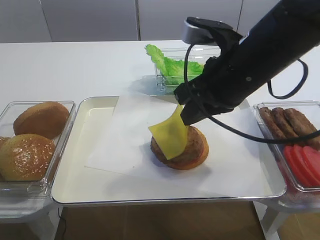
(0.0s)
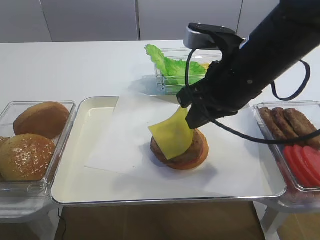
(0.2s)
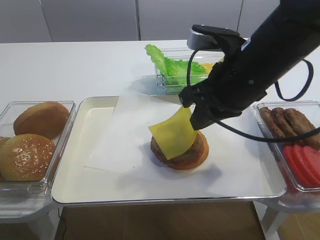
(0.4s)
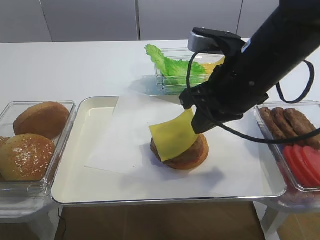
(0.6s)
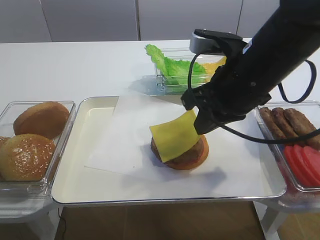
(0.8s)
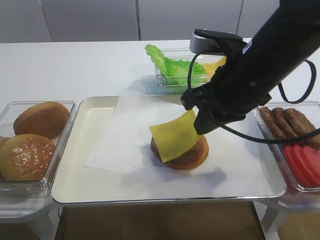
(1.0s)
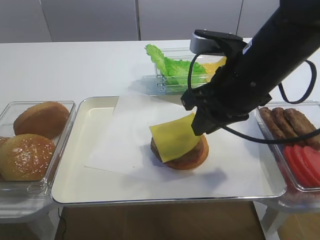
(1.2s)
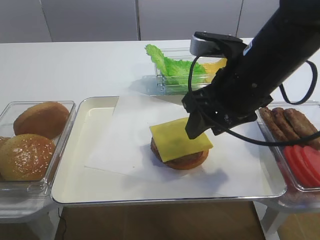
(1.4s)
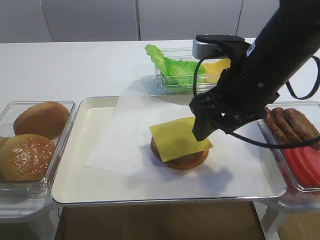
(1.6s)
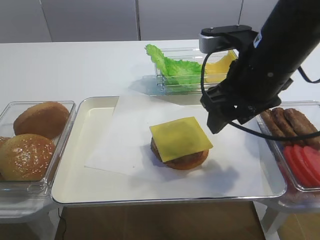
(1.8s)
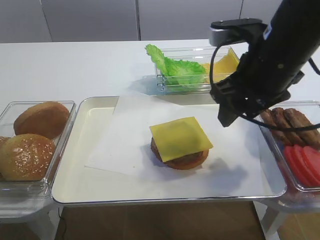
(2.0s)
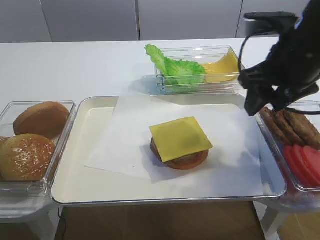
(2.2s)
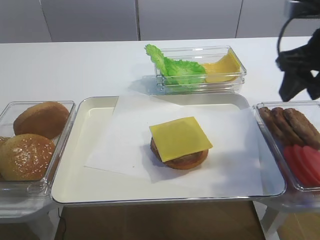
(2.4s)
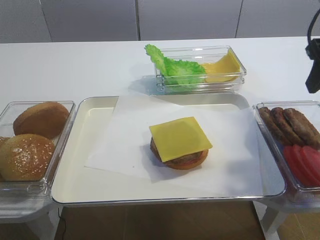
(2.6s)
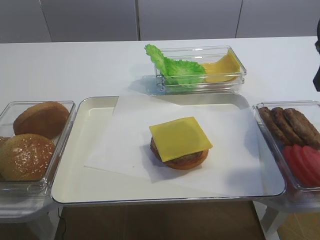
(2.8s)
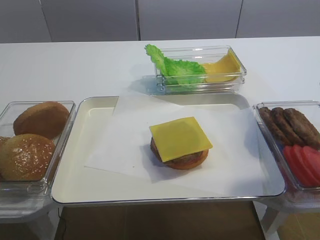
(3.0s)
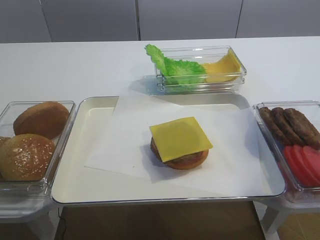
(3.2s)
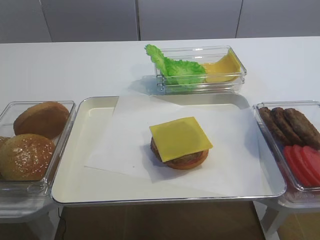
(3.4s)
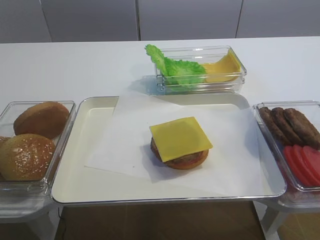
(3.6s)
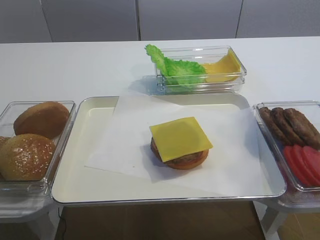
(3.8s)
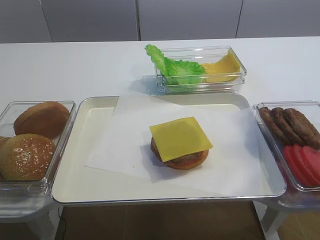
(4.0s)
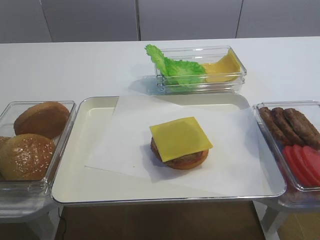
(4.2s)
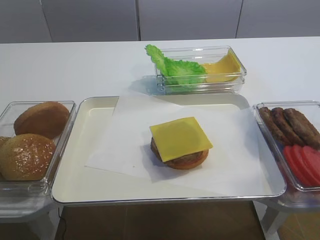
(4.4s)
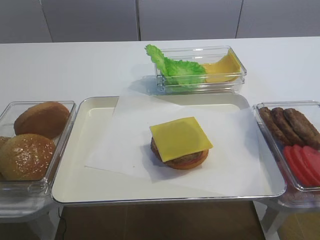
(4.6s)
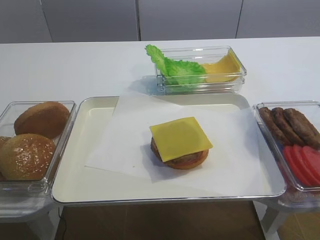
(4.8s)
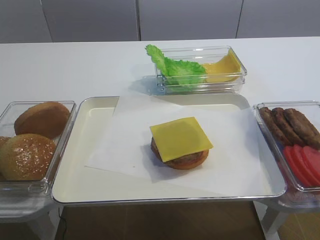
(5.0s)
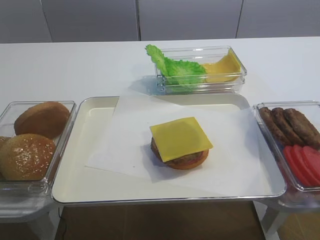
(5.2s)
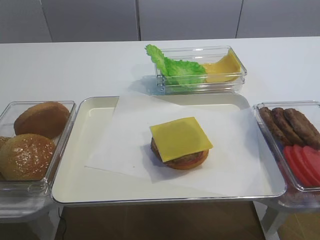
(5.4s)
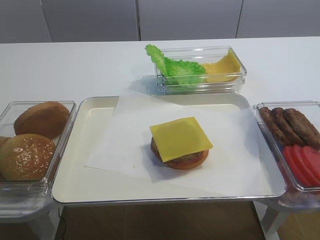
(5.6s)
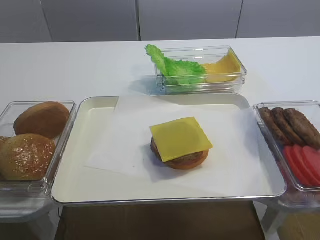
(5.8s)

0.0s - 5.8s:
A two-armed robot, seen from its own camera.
0.0s - 1.4s: The right gripper opens its fingers.
1.4s - 2.8s: The right gripper travels to the right and upward by some 15 cm.
2.8s - 4.4s: The right gripper heads backward, covering approximately 25 cm.

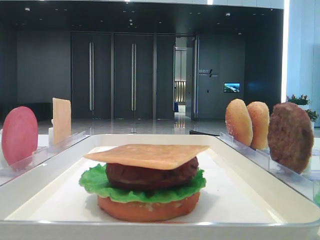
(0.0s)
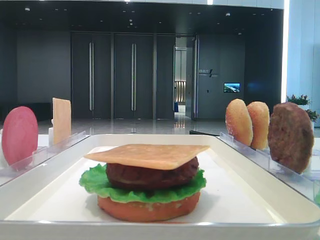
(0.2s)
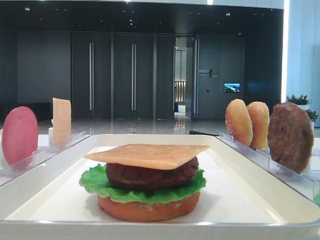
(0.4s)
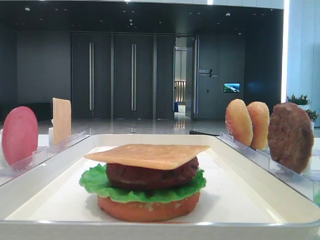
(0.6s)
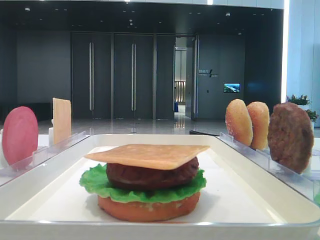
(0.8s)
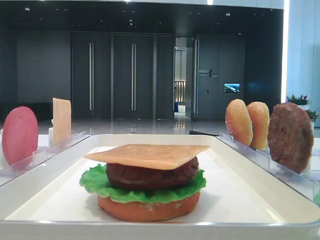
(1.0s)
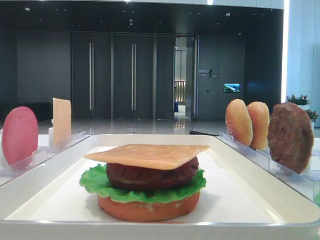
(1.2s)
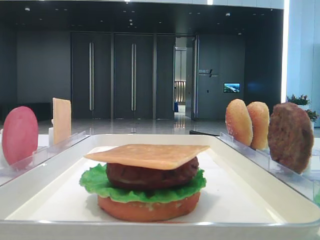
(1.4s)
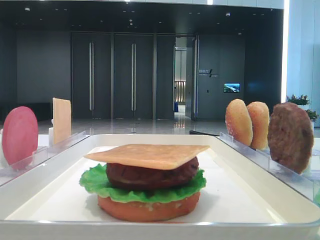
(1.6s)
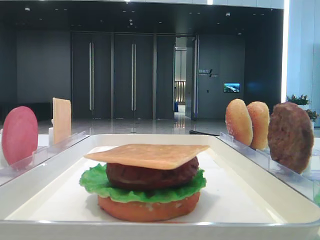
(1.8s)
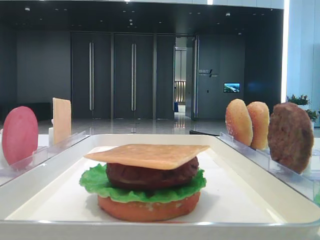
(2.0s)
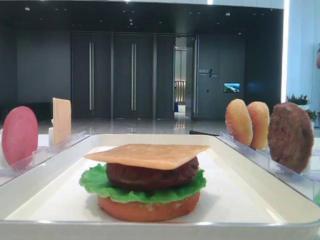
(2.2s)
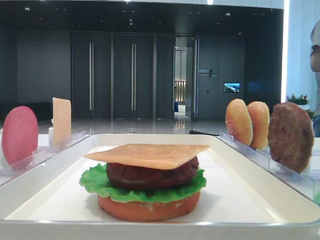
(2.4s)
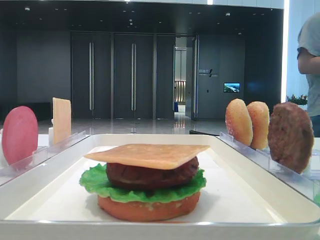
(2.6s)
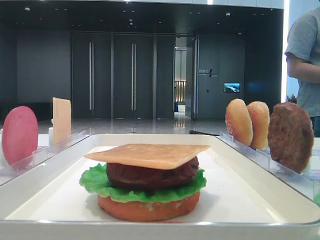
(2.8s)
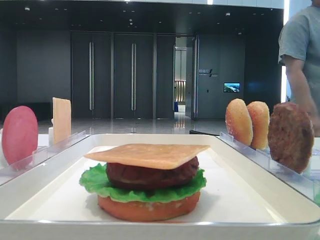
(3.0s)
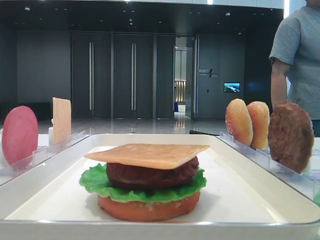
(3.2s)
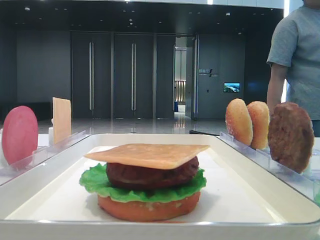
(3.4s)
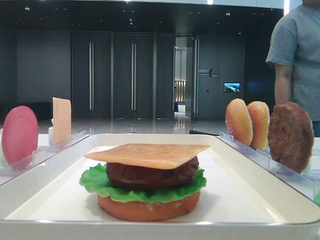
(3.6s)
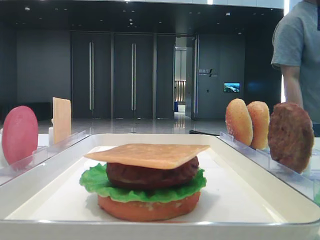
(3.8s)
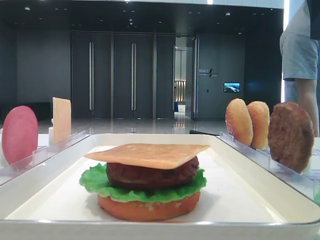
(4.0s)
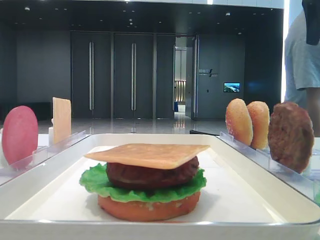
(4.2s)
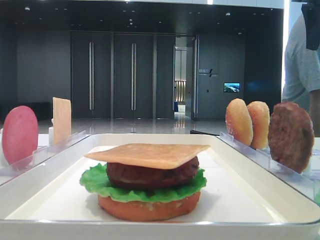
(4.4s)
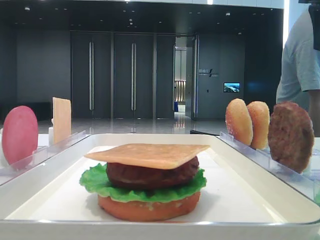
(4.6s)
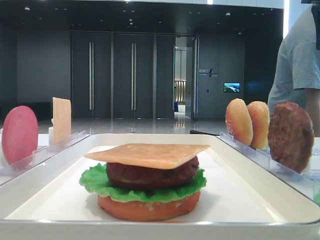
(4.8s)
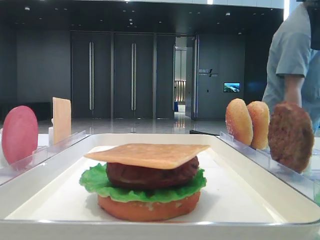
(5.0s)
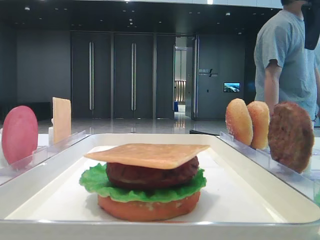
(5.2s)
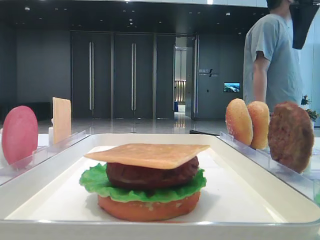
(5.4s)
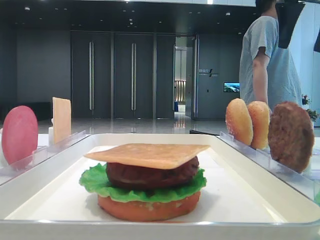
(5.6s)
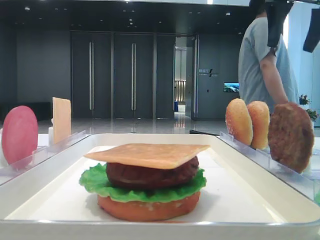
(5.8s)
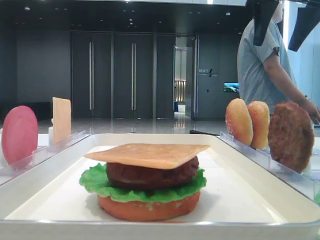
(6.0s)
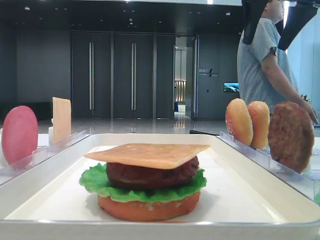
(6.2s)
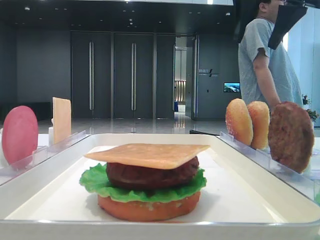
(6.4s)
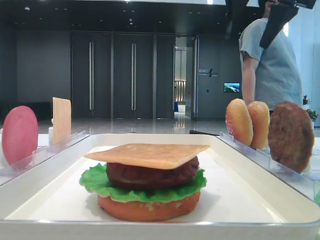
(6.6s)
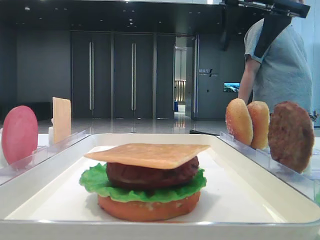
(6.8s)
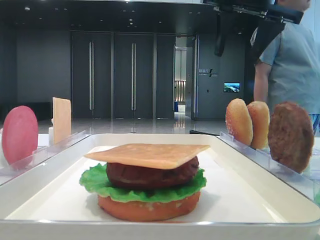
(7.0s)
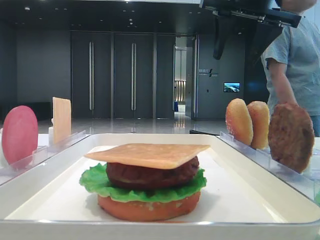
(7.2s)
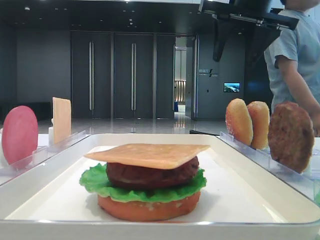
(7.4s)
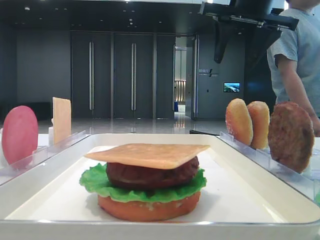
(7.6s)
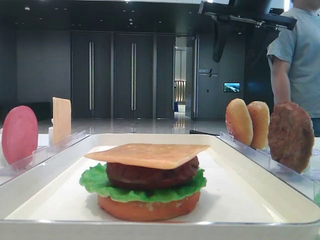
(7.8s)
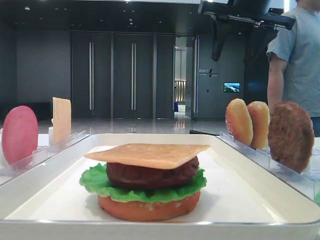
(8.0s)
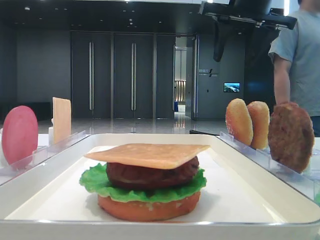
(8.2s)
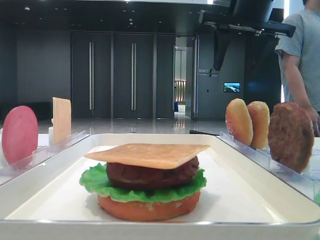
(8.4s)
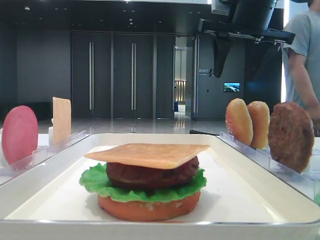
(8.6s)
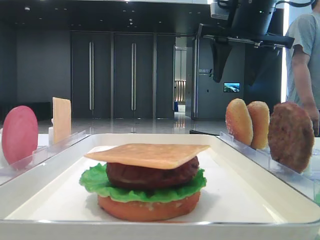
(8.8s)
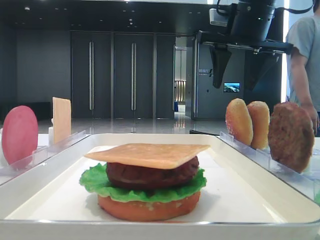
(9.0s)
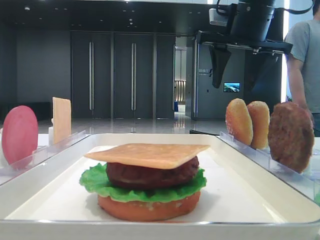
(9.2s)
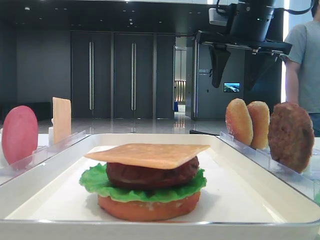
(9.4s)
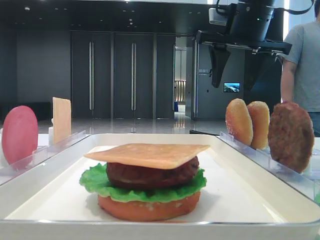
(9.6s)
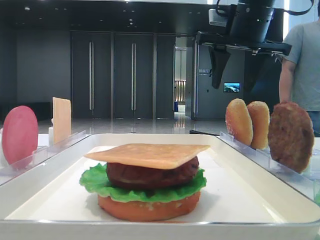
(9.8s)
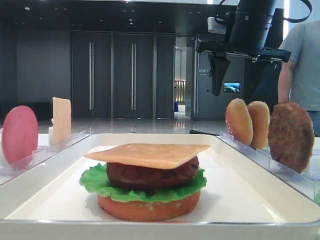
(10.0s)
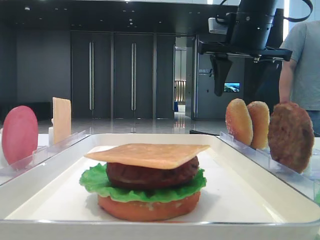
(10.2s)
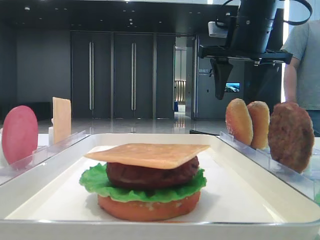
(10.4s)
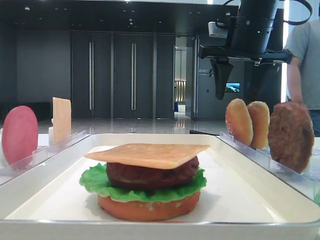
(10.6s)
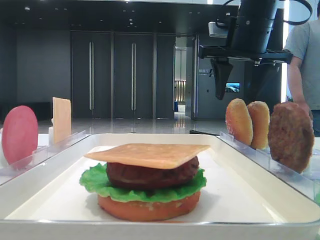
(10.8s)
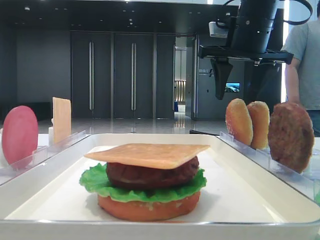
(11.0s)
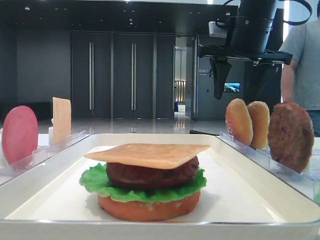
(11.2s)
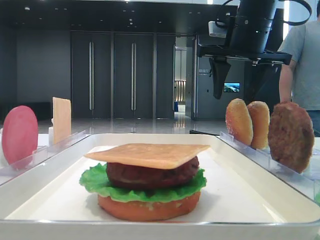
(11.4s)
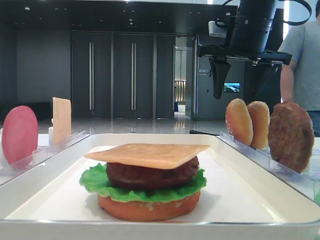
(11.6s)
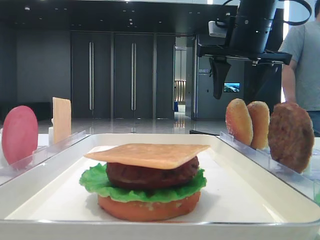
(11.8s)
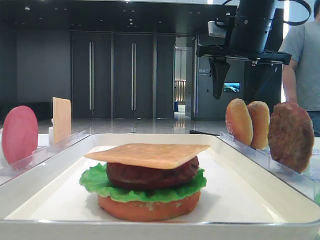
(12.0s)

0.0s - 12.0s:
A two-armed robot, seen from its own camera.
1.6s - 3.0s: The right gripper moves forward, some 20 cm.
3.0s - 4.4s: The right gripper moves forward, approximately 15 cm.
4.4s - 6.0s: The right gripper travels to the left by about 10 cm.
6.0s - 7.6s: The right gripper goes roughly 5 cm to the left.
7.6s - 10.4s: The grippers move only a little.
10.4s - 12.0s: Neither gripper changes place.

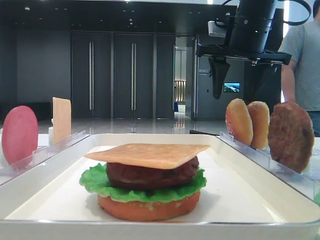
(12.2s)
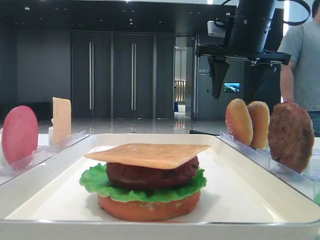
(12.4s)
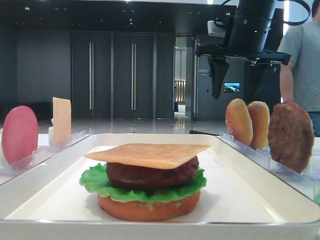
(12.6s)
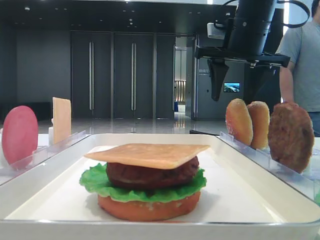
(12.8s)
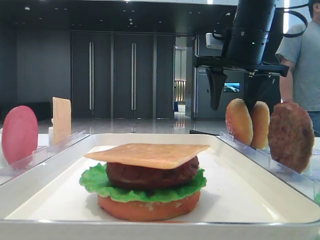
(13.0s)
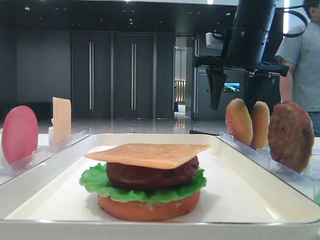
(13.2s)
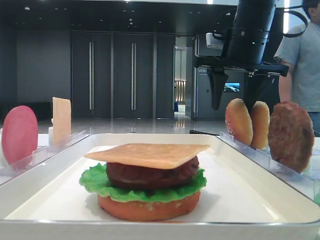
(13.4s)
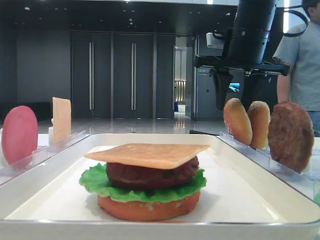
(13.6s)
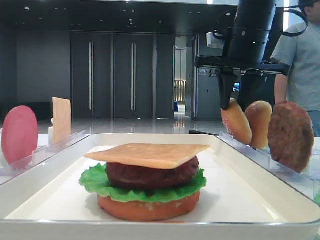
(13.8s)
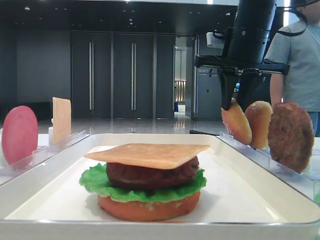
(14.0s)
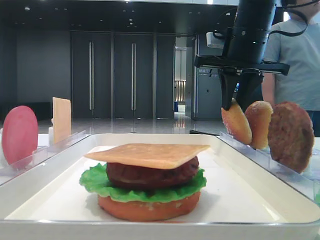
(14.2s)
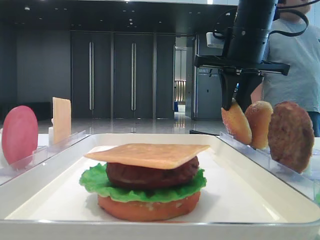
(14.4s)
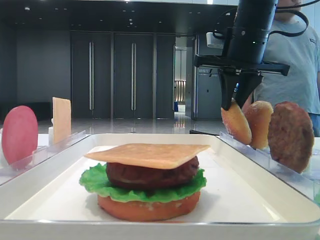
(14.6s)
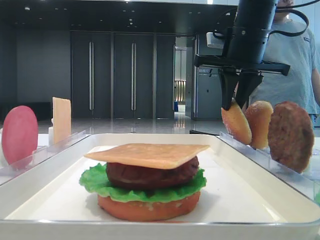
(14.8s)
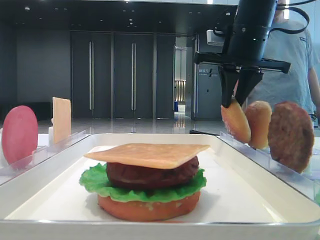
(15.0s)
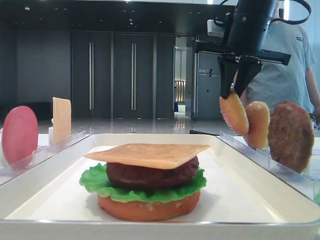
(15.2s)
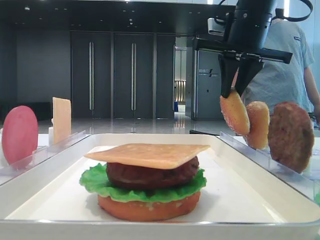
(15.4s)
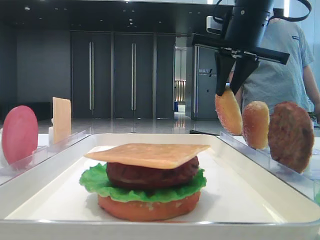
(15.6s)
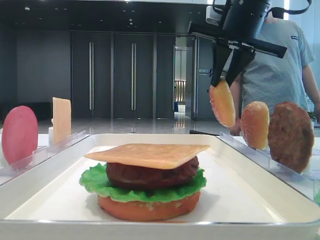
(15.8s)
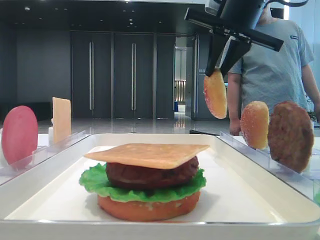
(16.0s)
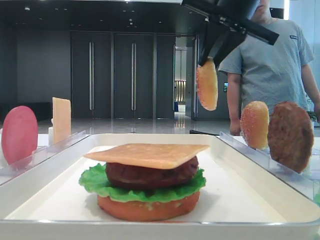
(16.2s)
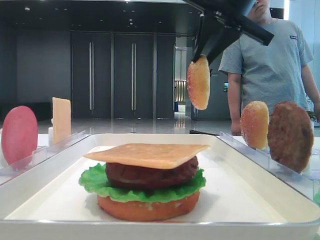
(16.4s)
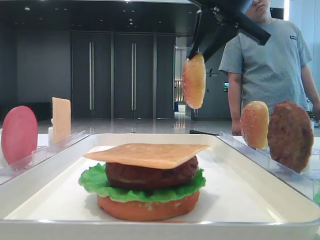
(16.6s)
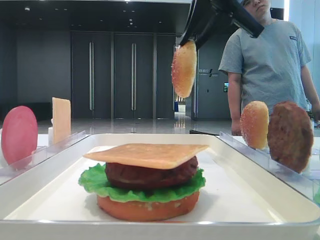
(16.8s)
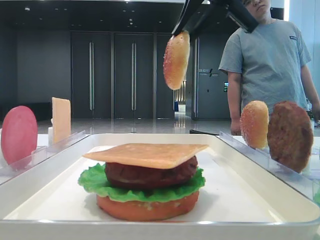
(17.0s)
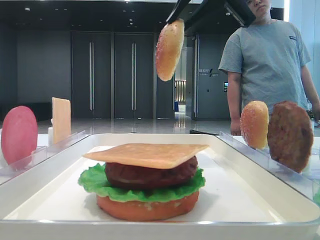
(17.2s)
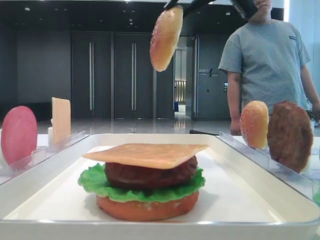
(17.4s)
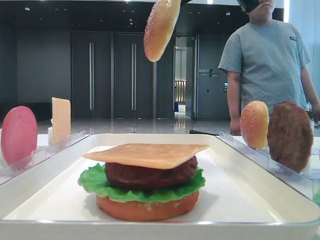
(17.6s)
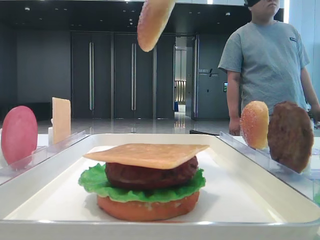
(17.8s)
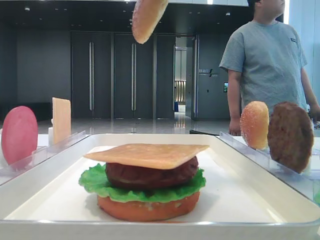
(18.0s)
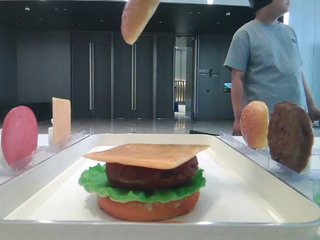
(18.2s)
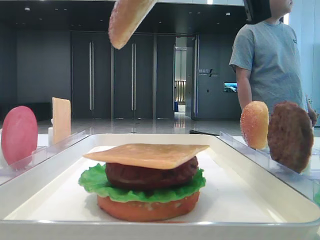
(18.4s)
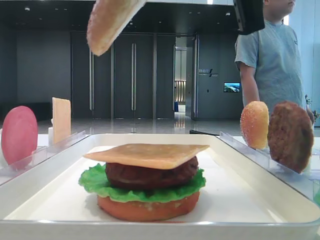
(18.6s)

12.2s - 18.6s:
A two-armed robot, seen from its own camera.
Step, 12.2s - 14.8s: Pick up the top bread slice with the right hand.
12.2s - 13.8s: The right gripper closes its fingers.
13.8s - 15.4s: There are only small adjustments of the grippers.
15.4s - 17.0s: The right gripper shifts some 5 cm upward.
17.0s - 18.6s: The right gripper heads backward, covering approximately 15 cm.
